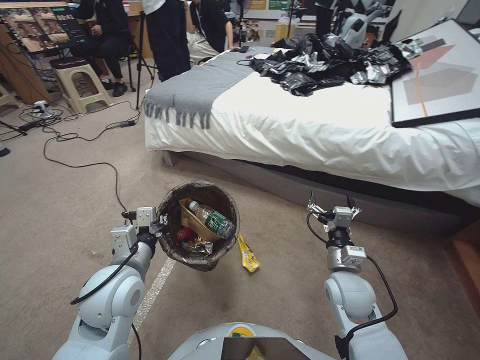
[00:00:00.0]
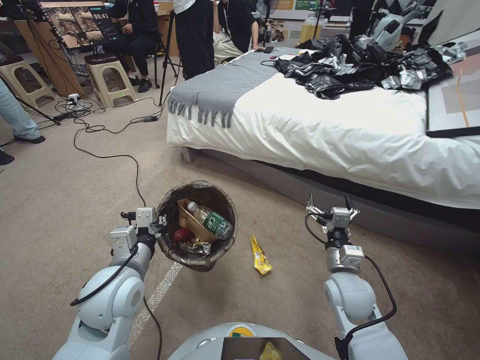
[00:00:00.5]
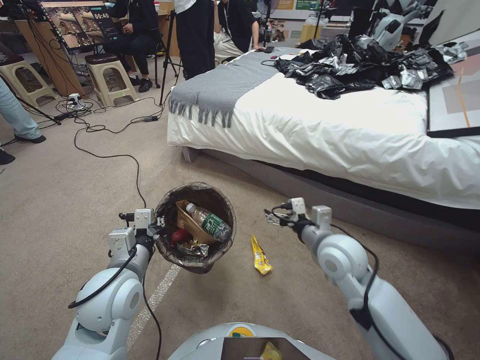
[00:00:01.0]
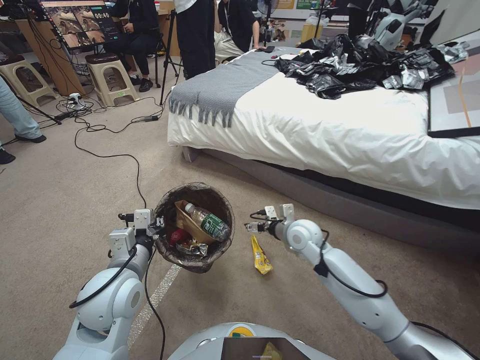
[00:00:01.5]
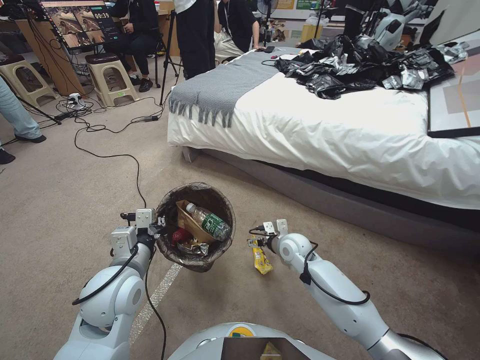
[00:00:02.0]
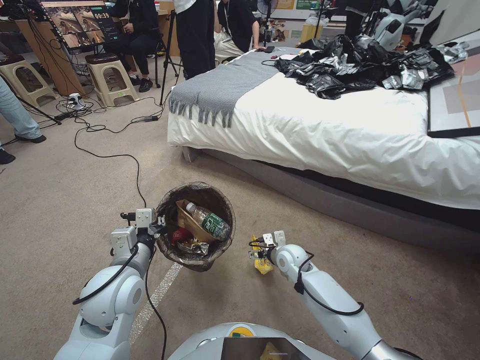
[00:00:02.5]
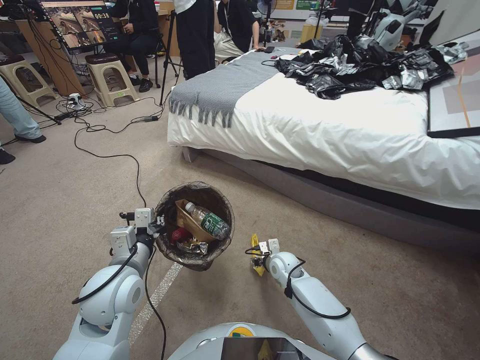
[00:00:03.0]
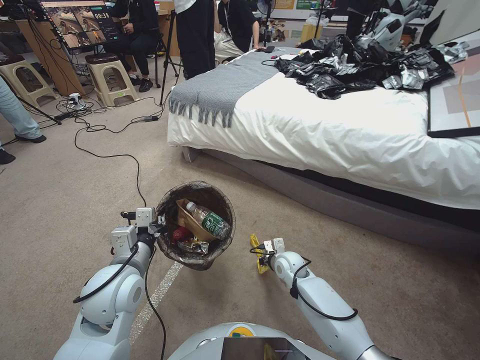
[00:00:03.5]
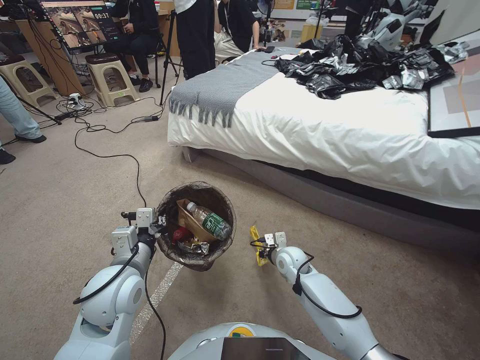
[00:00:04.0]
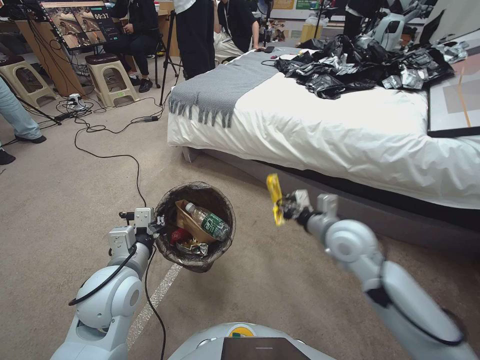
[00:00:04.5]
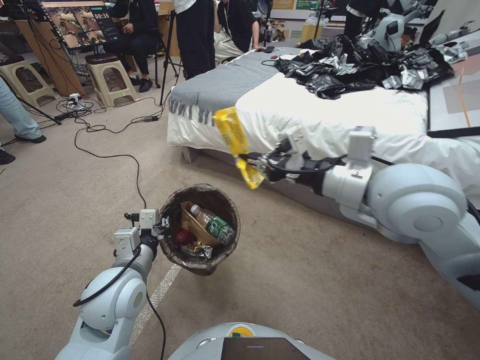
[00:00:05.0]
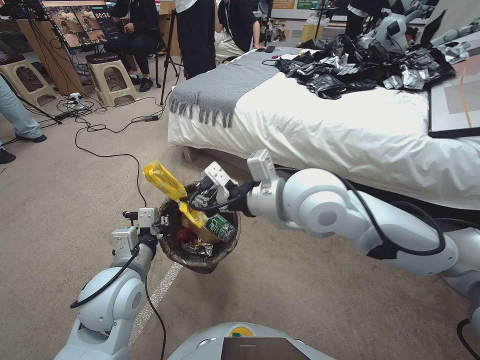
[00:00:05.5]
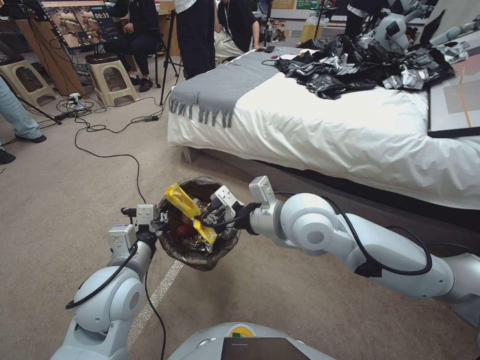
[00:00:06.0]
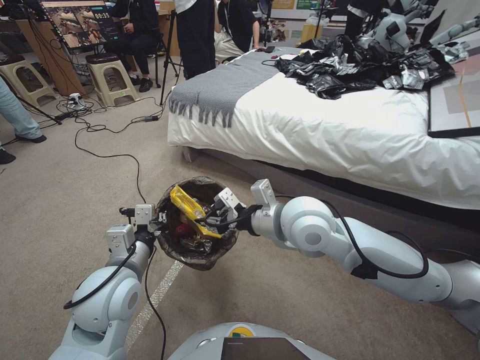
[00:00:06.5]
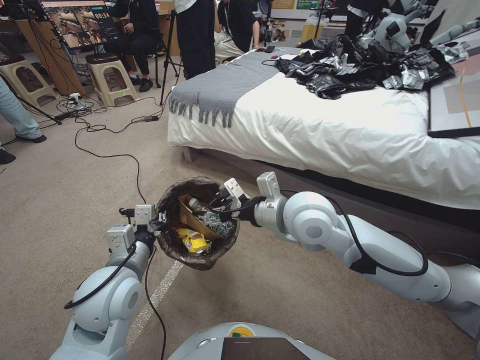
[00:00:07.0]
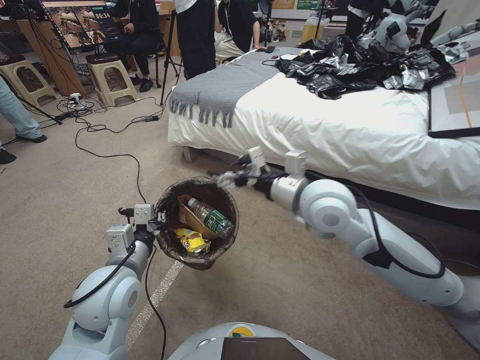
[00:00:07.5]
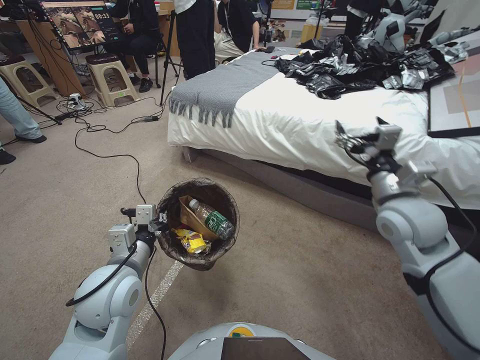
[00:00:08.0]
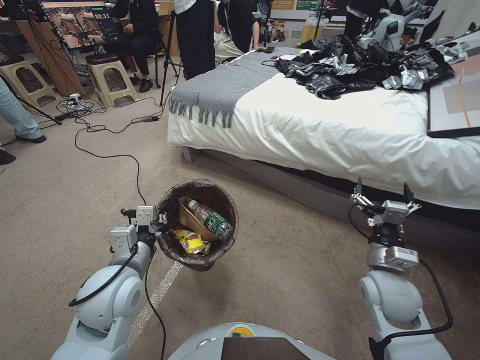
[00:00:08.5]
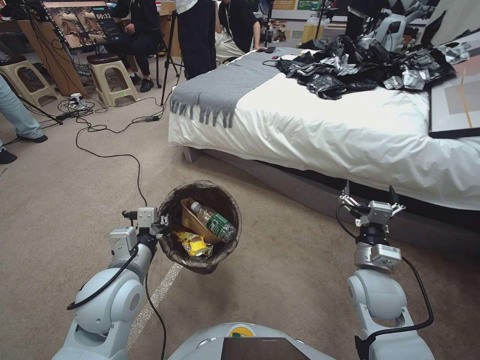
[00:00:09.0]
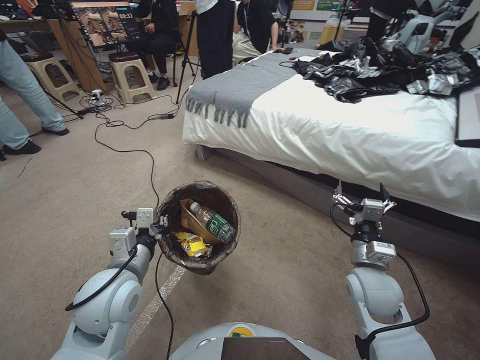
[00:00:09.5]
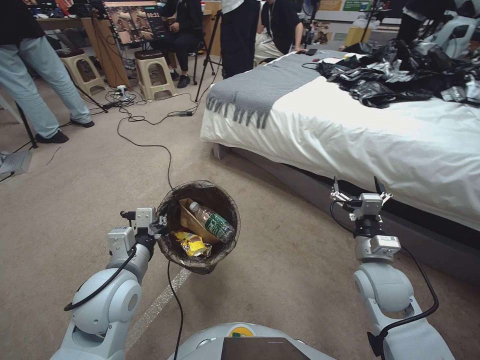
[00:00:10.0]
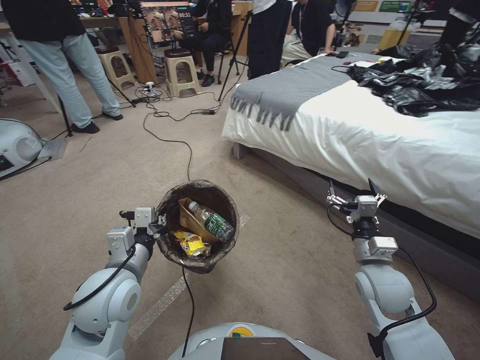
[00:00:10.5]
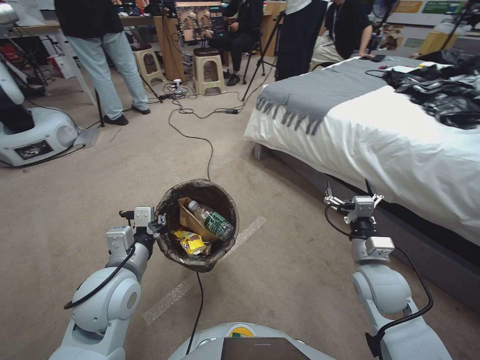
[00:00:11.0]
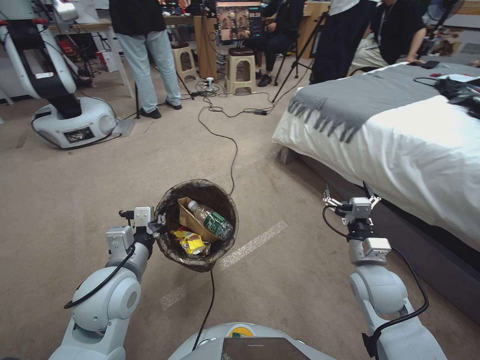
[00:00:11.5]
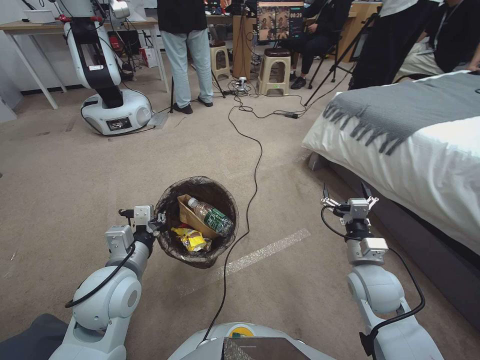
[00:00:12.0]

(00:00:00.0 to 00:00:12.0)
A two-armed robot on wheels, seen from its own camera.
Task of the whole recording: Pick up the trash bin, then pick up the garbage from the floor and place it into the trash bin.
00:00:00.0 - 00:00:02.0: The right gripper heads forward, to the left and downward, covering roughly 15 cm.
00:00:02.0 - 00:00:04.0: The right gripper is displaced downward by some 5 cm, and closes.
00:00:04.0 - 00:00:06.0: The right gripper shifts approximately 35 cm upward.
00:00:06.0 - 00:00:08.0: The right gripper heads to the right, covering roughly 20 cm, and opens up.
00:00:08.0 - 00:00:10.0: The right gripper shifts about 20 cm downward and backward.

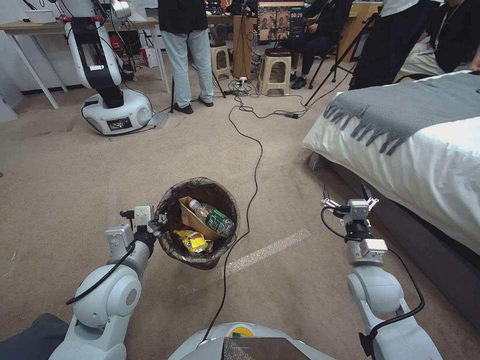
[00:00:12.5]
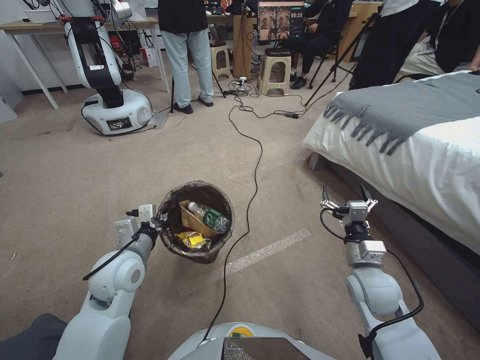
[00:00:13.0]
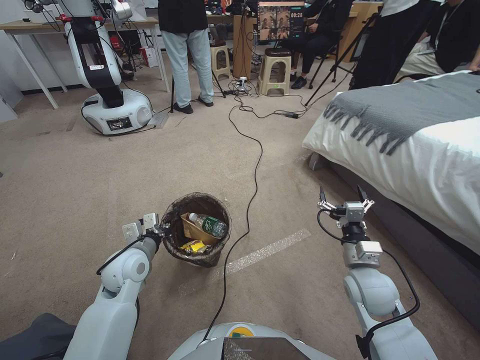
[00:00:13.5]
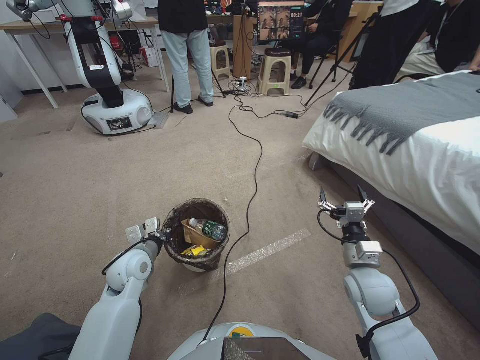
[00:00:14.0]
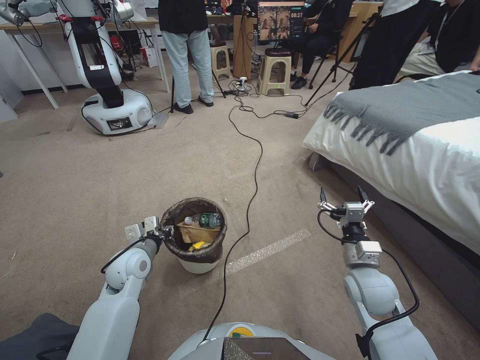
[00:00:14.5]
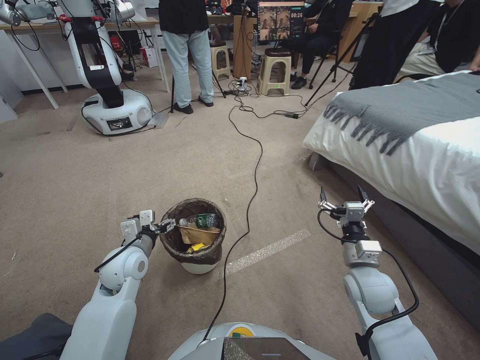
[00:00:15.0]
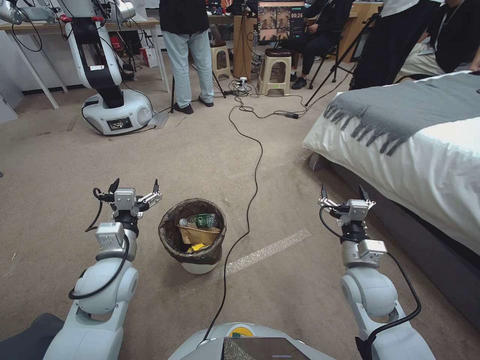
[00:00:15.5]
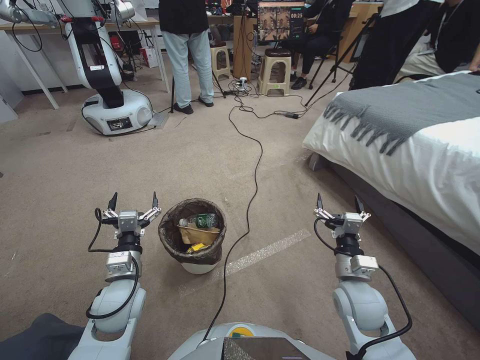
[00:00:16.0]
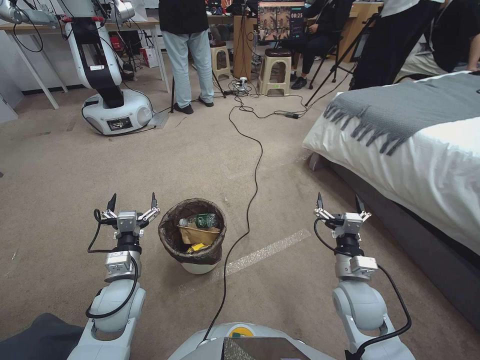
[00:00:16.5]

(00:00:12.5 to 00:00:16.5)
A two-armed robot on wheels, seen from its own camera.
Task of the whole recording: Pick up the trash bin, then pick up the garbage from the floor and place it into the trash bin.
00:00:12.5 - 00:00:14.5: The left gripper is displaced downward and forward by roughly 15 cm.
00:00:14.5 - 00:00:16.5: The left gripper heads backward, covering approximately 10 cm, goes upward and returns, some 10 cm each way, and opens.
